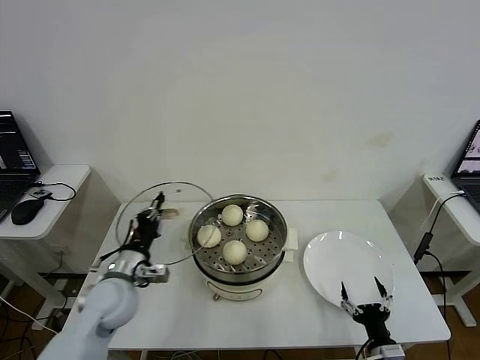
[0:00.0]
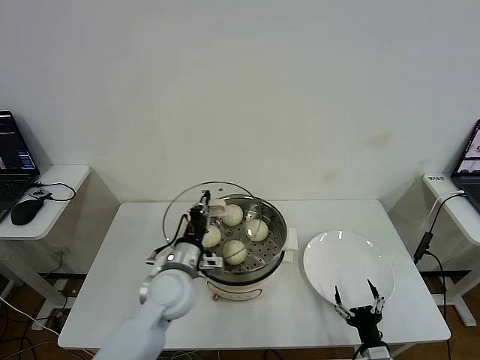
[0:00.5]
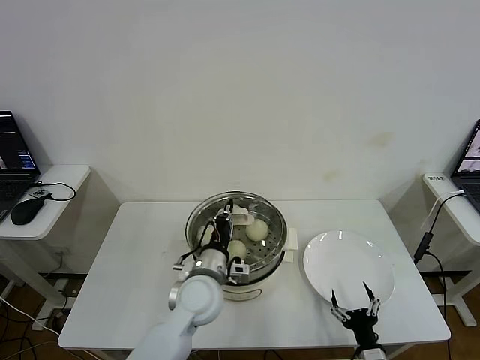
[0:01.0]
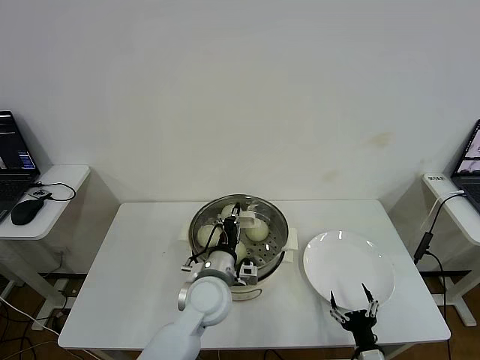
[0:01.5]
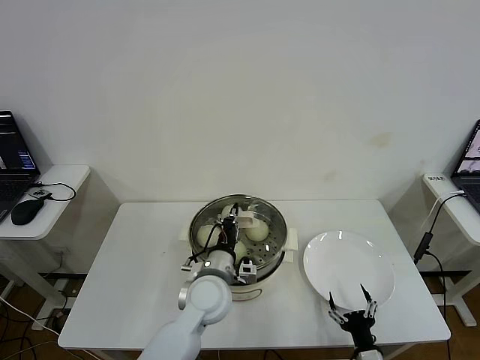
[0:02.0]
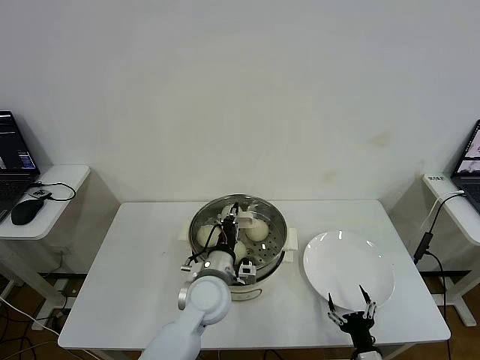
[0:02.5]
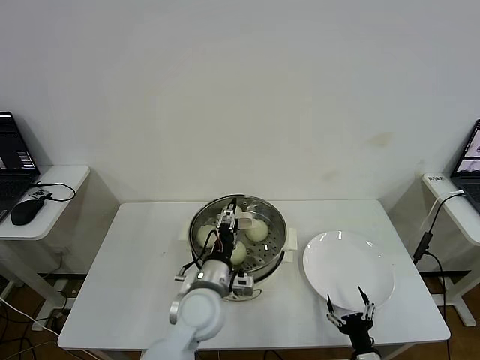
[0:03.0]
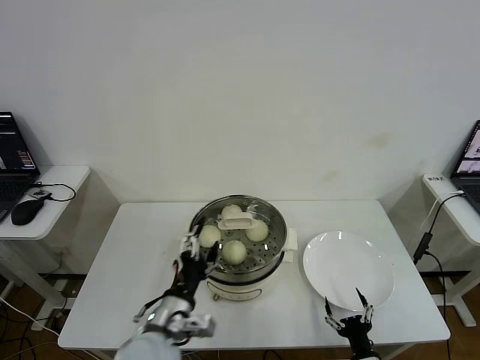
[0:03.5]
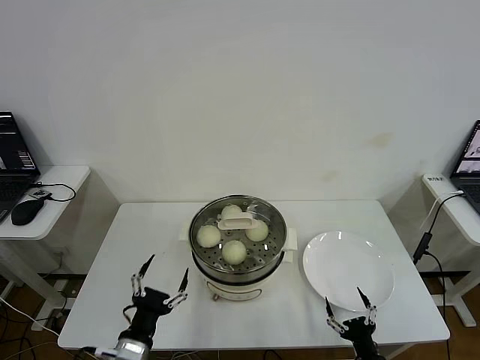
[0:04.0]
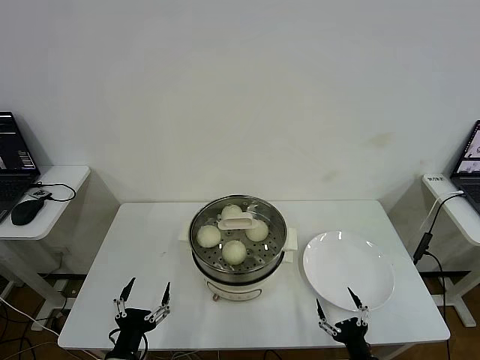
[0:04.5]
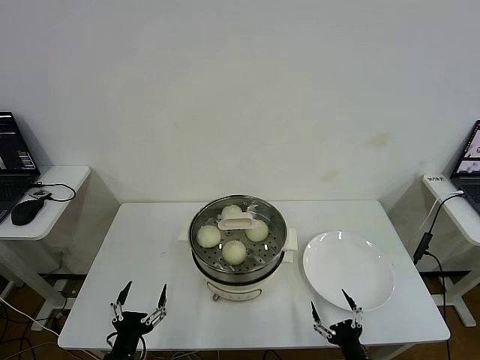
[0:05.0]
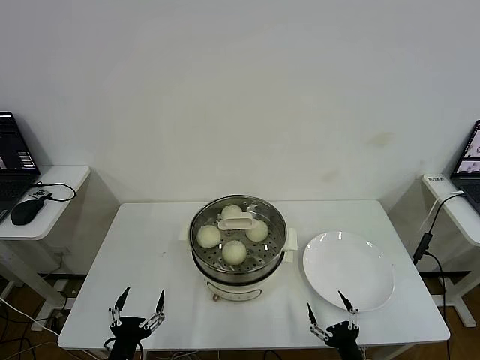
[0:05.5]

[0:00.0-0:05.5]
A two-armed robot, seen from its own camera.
Step, 0:00.0 to 0:02.5: Place the pot lid on the steamer with left gripper.
0:00.0 to 0:02.0: The left gripper moves to the right, approximately 20 cm.
0:02.0 to 0:03.5: The left gripper travels backward and to the left by roughly 15 cm, and opens its fingers.
0:03.5 to 0:05.5: The left gripper goes roughly 20 cm to the left, downward and backward.

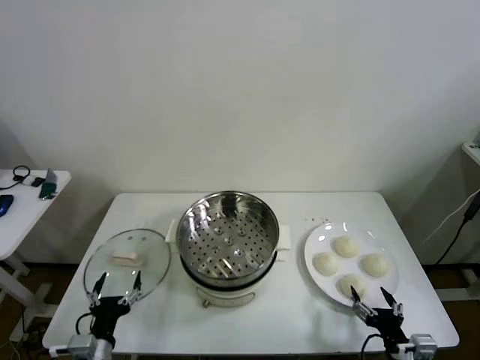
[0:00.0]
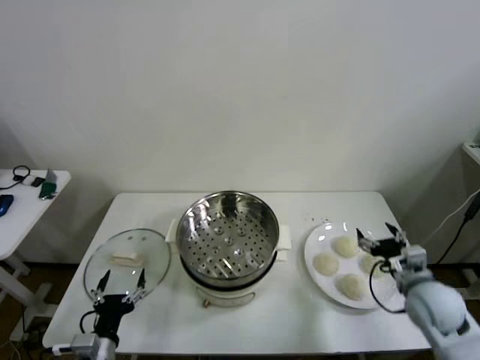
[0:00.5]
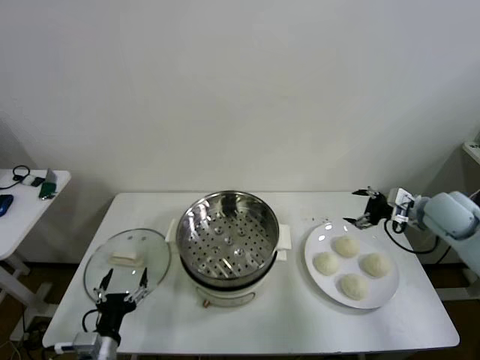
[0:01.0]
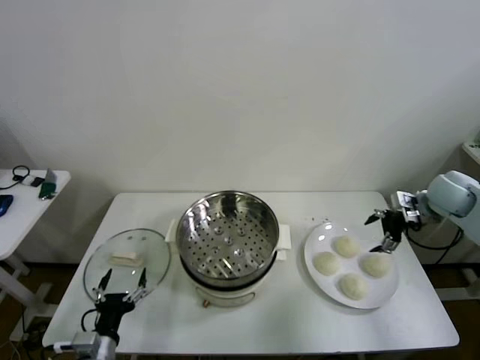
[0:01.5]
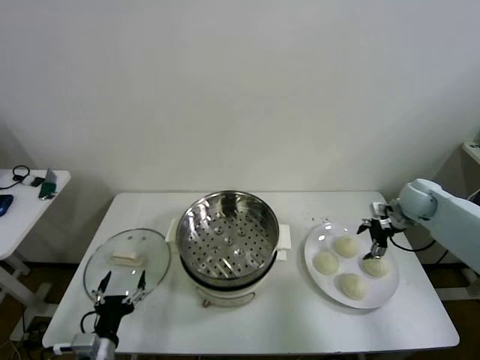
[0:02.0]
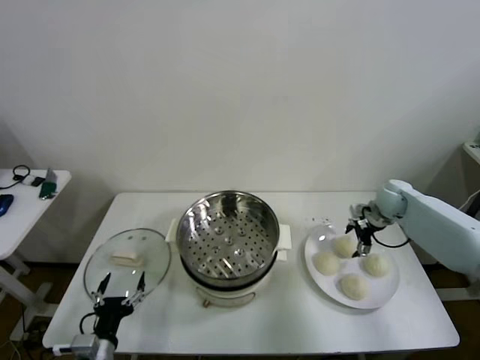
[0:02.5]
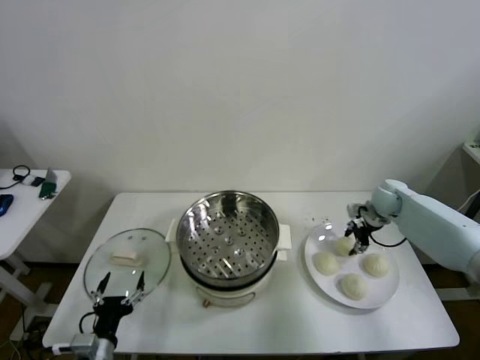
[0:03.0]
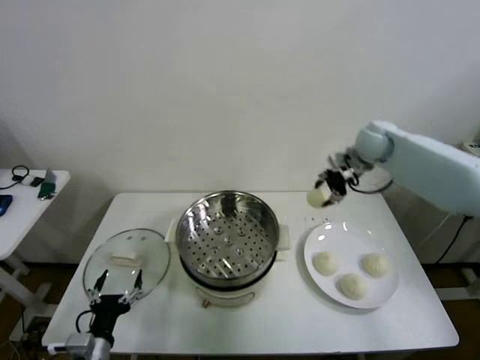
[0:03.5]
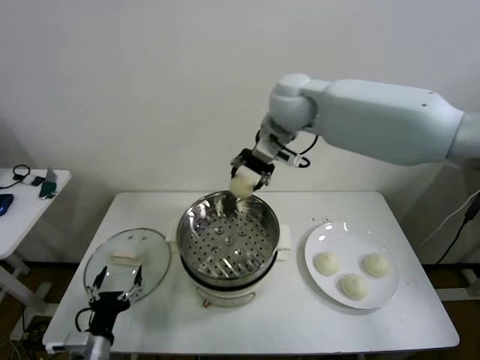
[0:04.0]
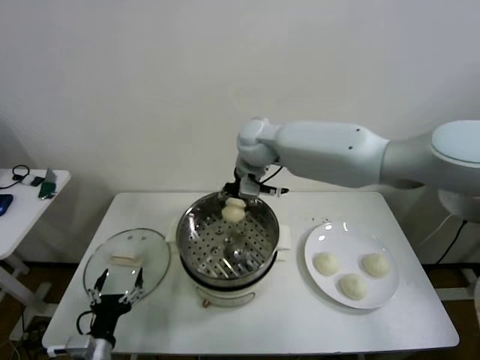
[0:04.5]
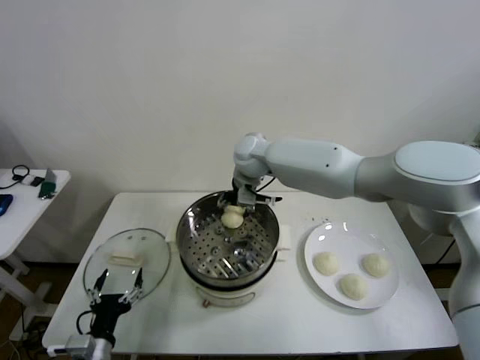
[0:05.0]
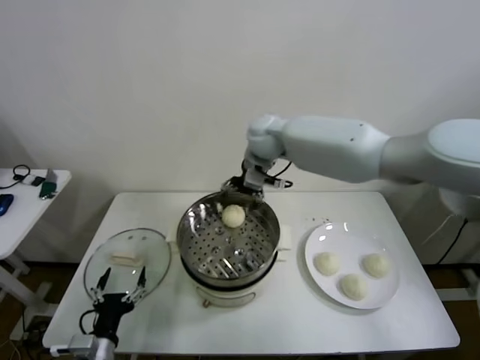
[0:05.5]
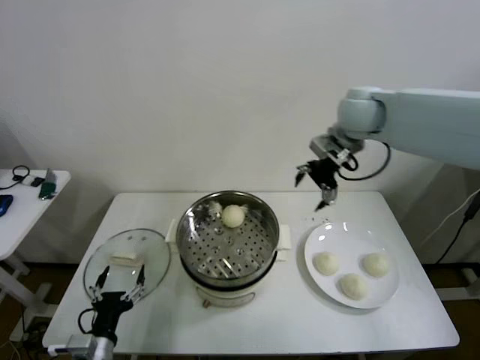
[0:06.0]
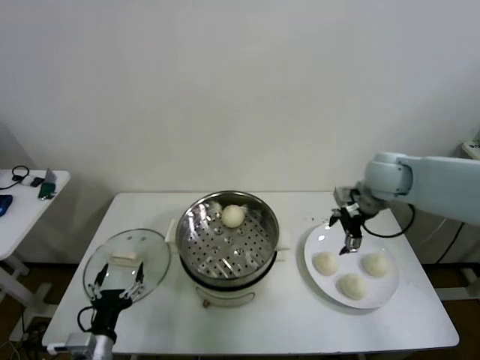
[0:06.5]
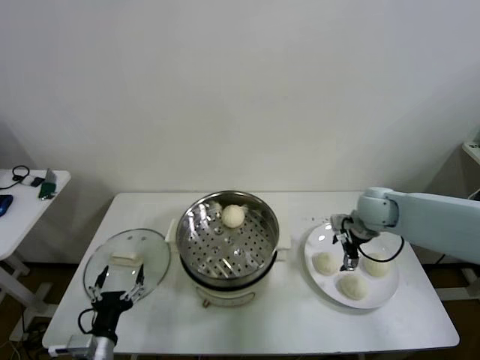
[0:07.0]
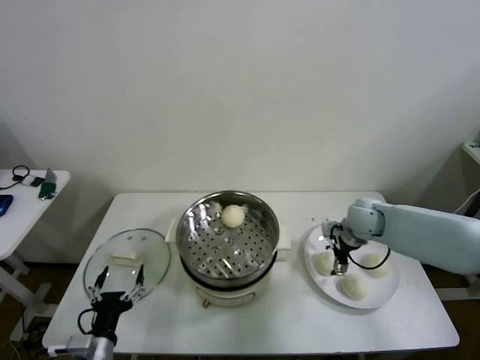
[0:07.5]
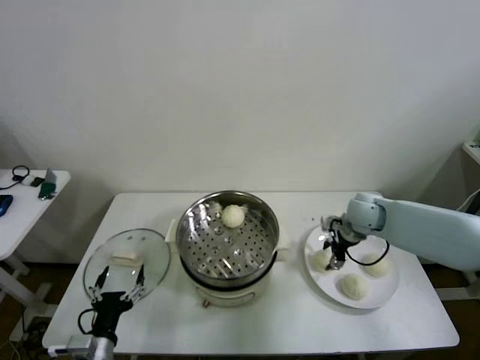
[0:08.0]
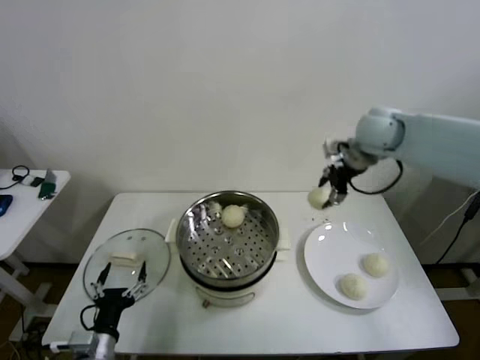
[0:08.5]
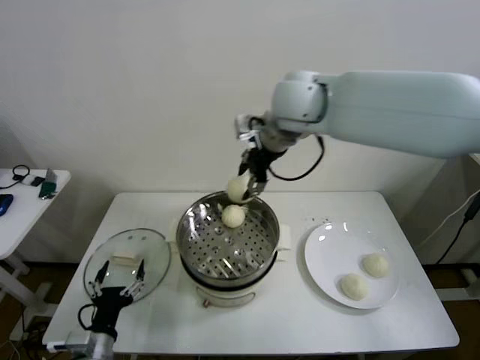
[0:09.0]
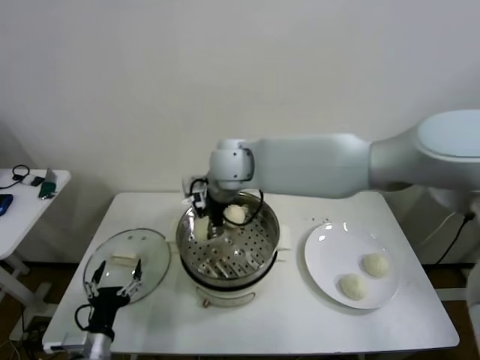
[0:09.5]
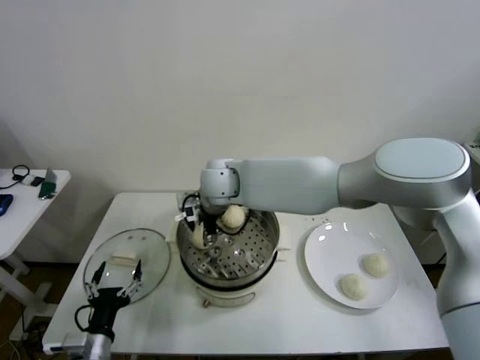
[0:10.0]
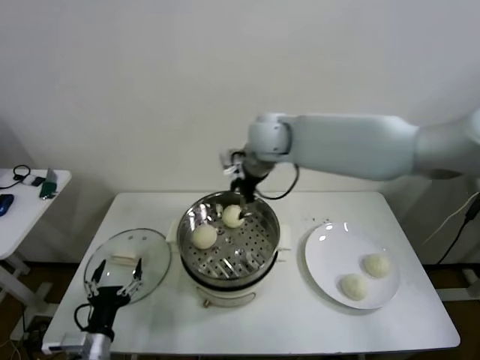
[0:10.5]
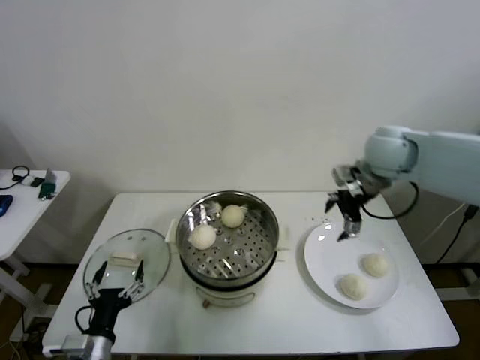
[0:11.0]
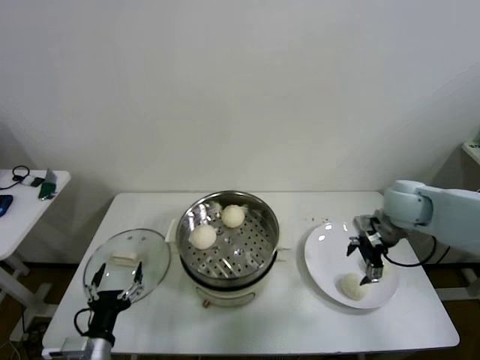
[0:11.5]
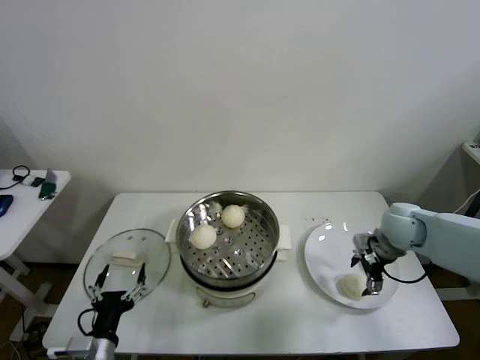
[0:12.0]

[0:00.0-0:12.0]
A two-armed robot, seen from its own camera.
Step, 0:00.0 to 0:03.0: Grasp the baozi in the plate with right gripper.
Step, 0:03.5 to 0:05.0: Place the baozi on the steamer with right gripper.
Step, 0:05.5 to 0:07.5: Grasp the baozi in the plate with right gripper.
Step, 0:08.0 to 0:10.0: Place the baozi on the steamer with right gripper.
0:02.0 to 0:04.0: The right gripper moves to the left and upward, about 40 cm, and closes up.
0:04.0 to 0:06.0: The right gripper shifts approximately 20 cm to the right, and opens up.
0:06.0 to 0:08.0: The right gripper heads downward, covering roughly 25 cm, and closes.
0:08.0 to 0:10.0: The right gripper goes some 35 cm to the left, and opens.
0:10.0 to 0:12.0: The right gripper shifts about 40 cm to the right, and opens its fingers.

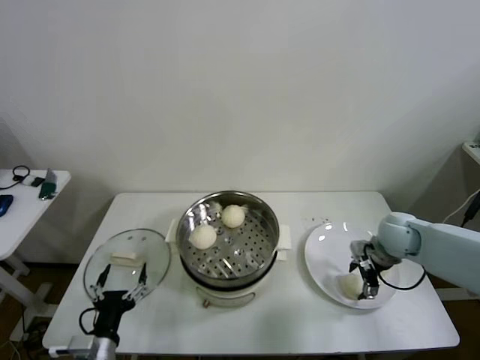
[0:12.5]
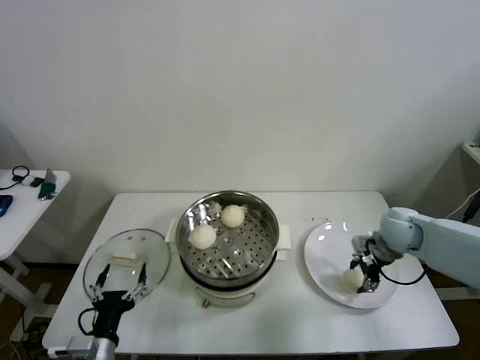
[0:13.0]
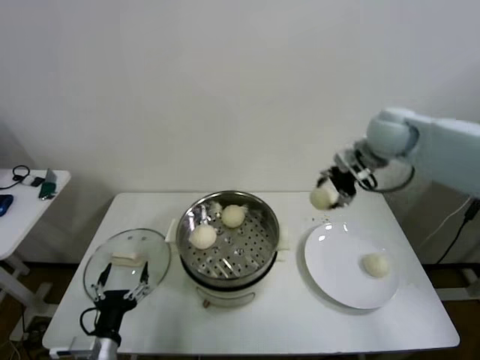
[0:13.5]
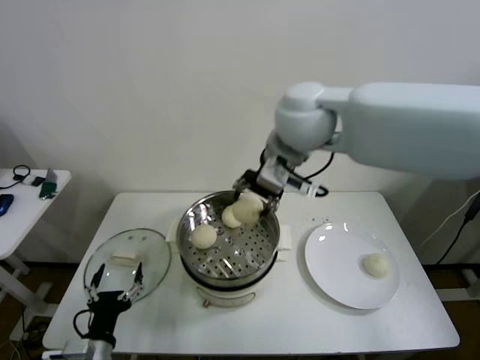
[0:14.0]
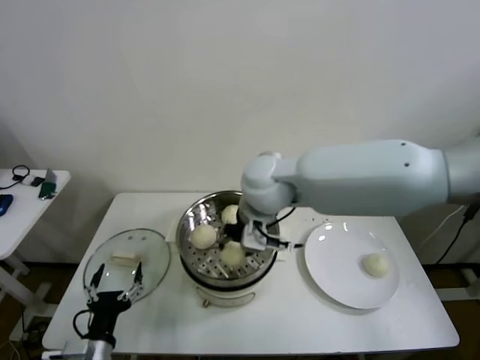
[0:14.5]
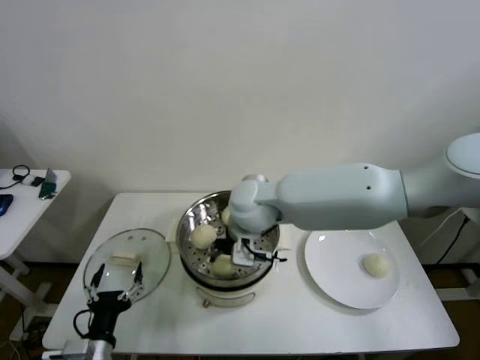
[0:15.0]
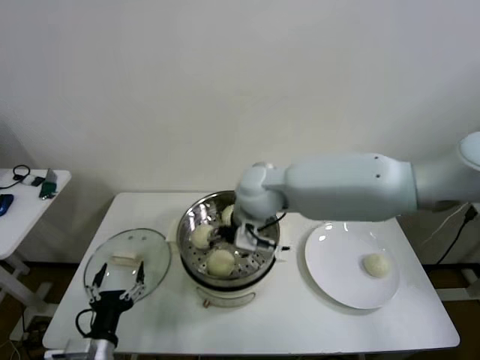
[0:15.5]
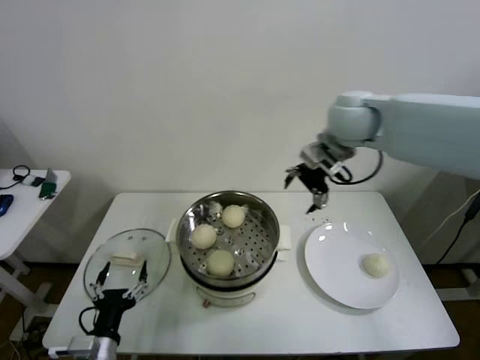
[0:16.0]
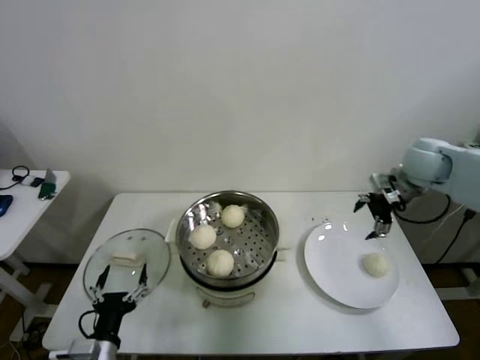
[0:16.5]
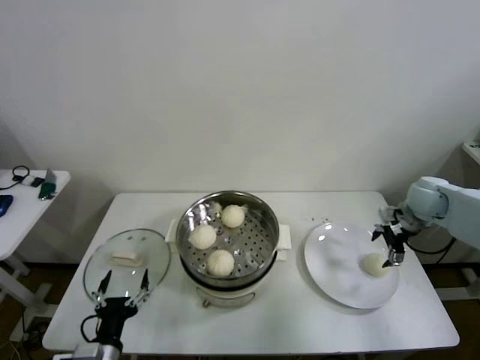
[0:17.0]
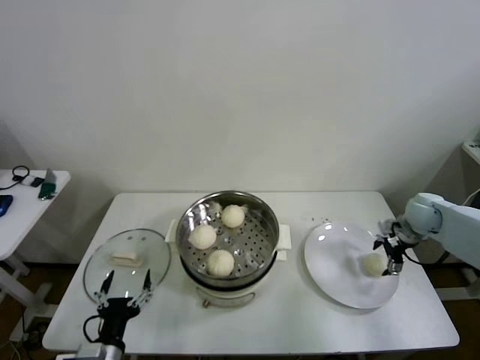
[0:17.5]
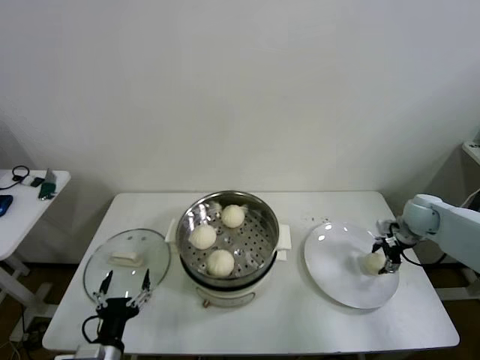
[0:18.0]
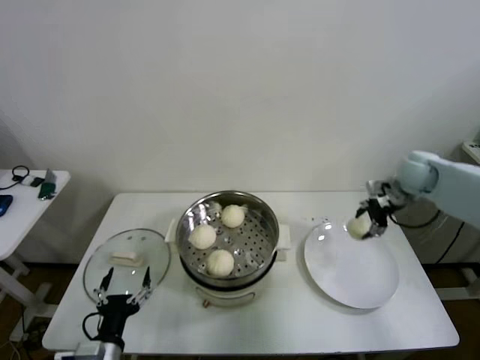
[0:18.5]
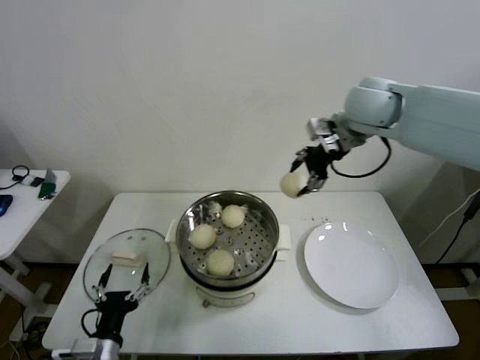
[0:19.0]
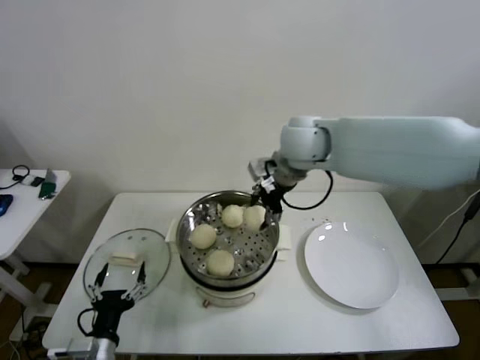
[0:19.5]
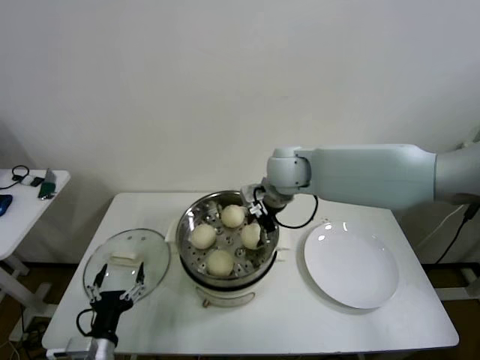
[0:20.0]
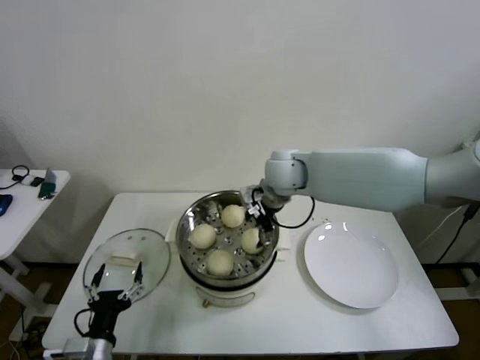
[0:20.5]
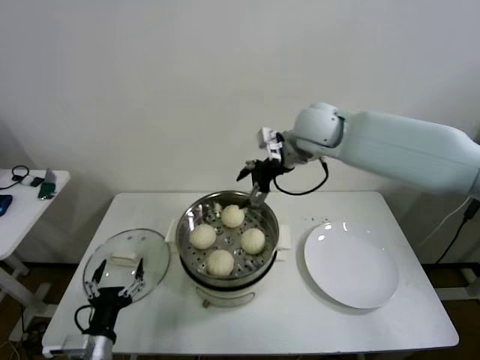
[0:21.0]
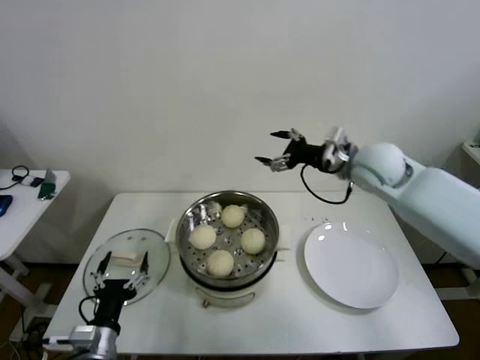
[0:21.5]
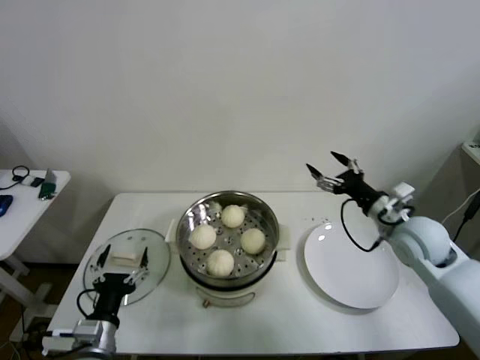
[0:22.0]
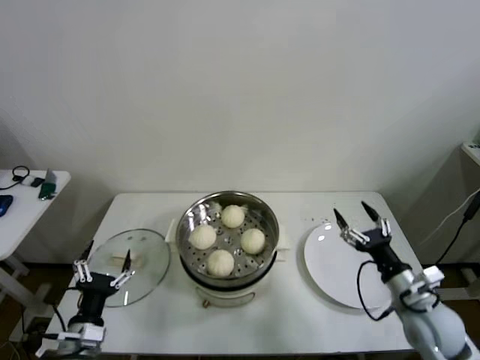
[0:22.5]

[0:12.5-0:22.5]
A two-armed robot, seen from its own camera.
Step, 0:13.0 to 0:15.0: Place the baozi on the steamer with right gripper.
Step, 0:15.5 to 0:18.0: Grasp the baozi in the plate with right gripper.
Step, 0:18.5 to 0:20.0: Place the baozi on the steamer with right gripper.
0:12.5 to 0:14.5: The right gripper heads to the left and upward, covering some 35 cm, and closes its fingers.
0:14.5 to 0:16.5: The right gripper is displaced to the right by approximately 35 cm, and opens its fingers.
0:16.5 to 0:18.5: The right gripper reaches roughly 15 cm downward, then returns, and closes.
0:18.5 to 0:20.5: The right gripper moves to the left, approximately 30 cm, and opens.
0:20.5 to 0:22.5: The right gripper goes some 40 cm to the right, backward and downward.
